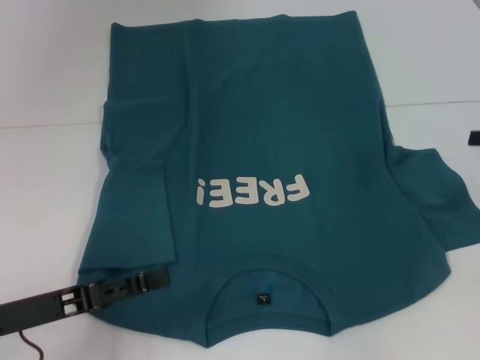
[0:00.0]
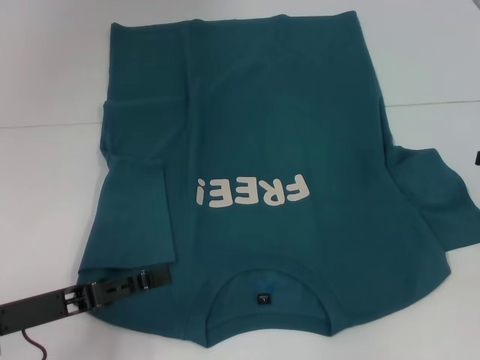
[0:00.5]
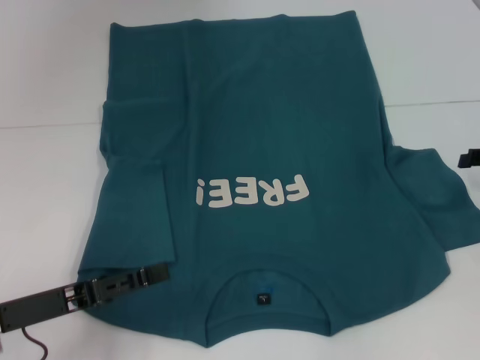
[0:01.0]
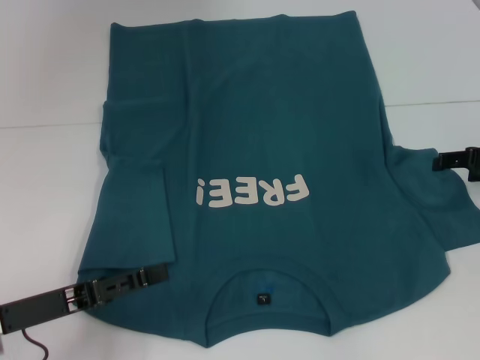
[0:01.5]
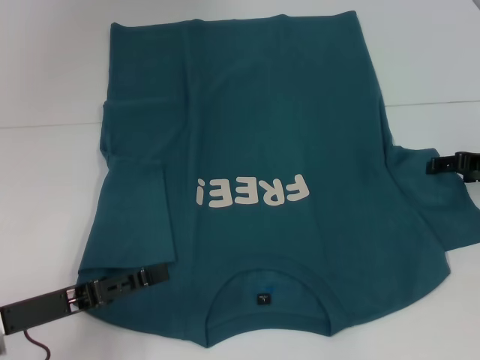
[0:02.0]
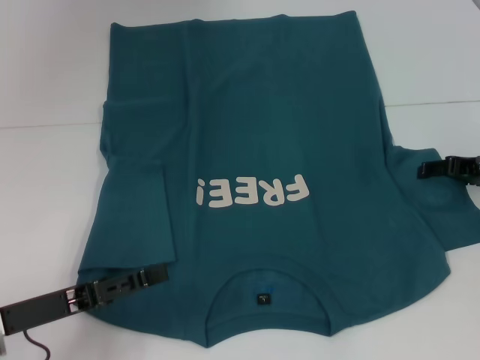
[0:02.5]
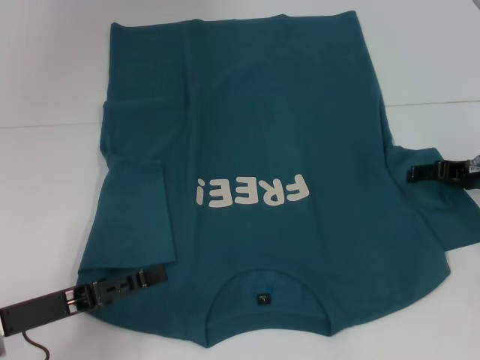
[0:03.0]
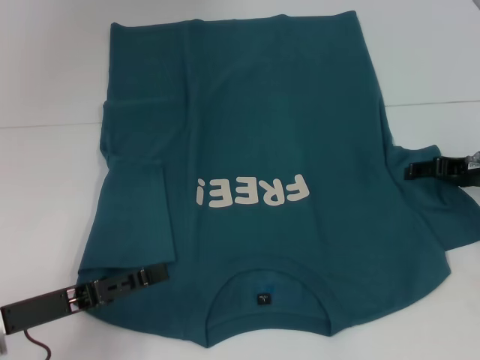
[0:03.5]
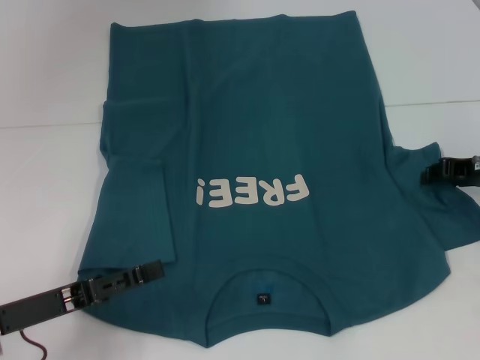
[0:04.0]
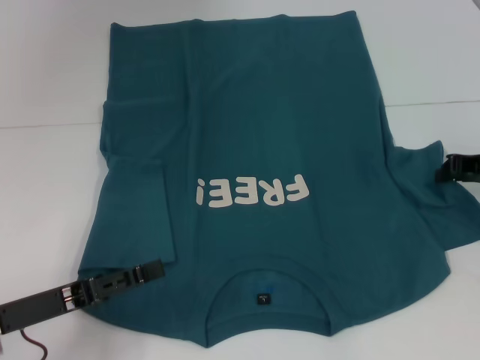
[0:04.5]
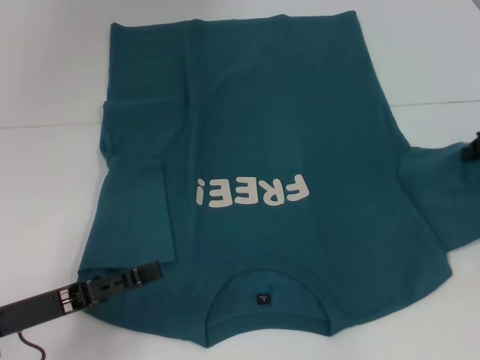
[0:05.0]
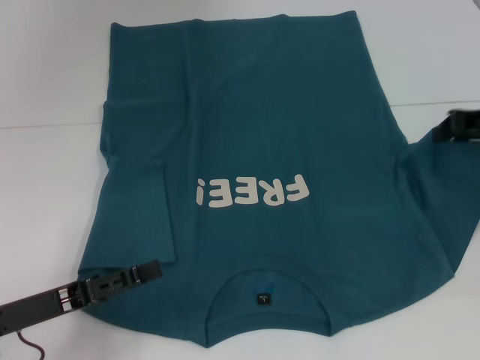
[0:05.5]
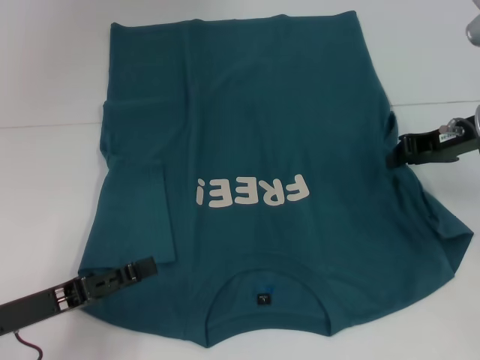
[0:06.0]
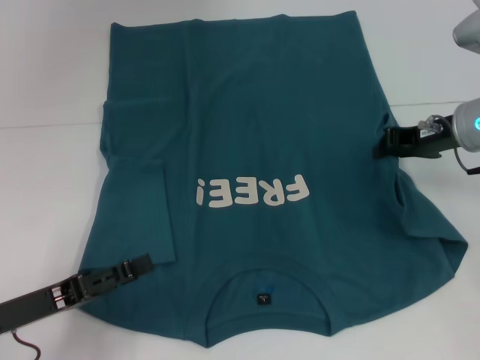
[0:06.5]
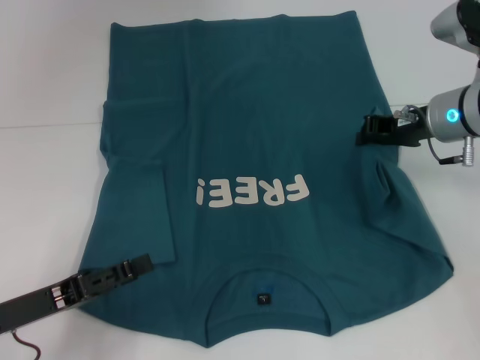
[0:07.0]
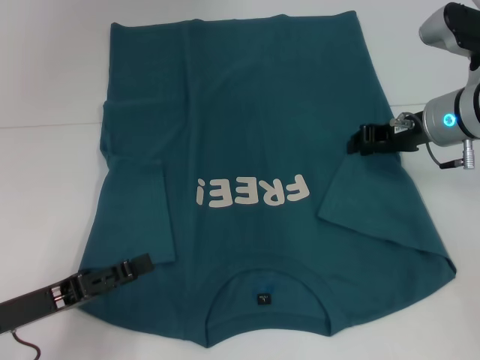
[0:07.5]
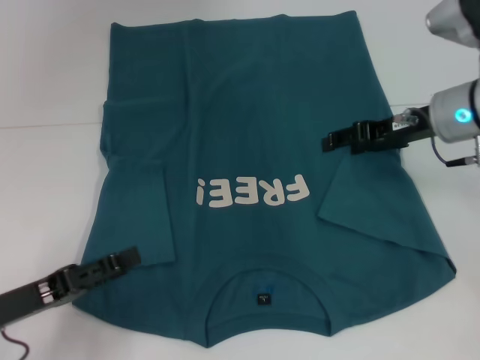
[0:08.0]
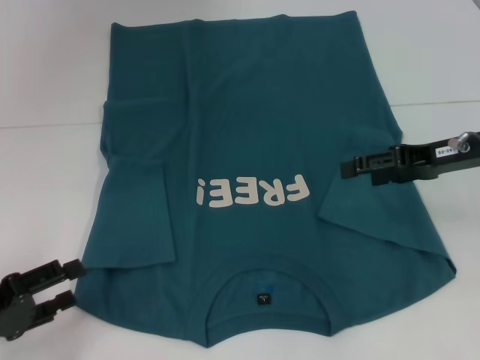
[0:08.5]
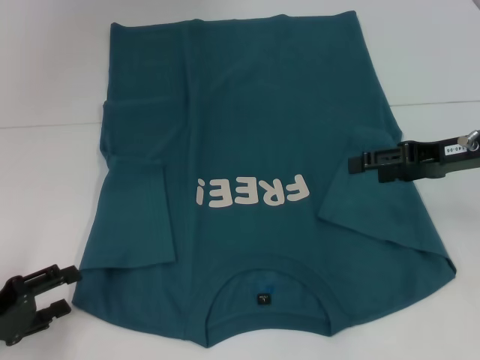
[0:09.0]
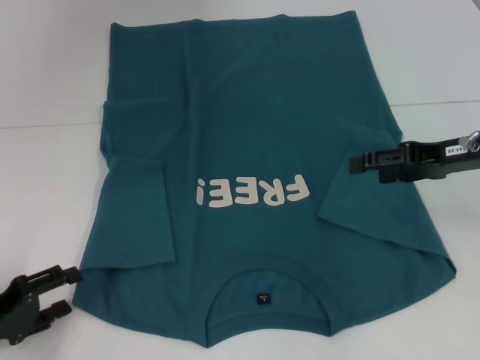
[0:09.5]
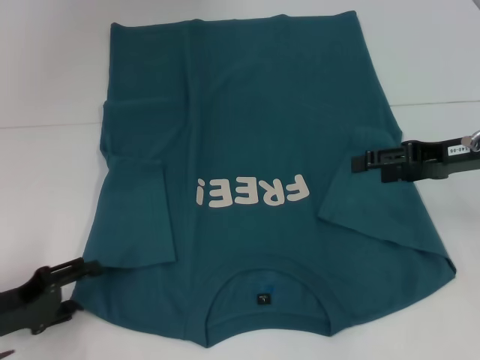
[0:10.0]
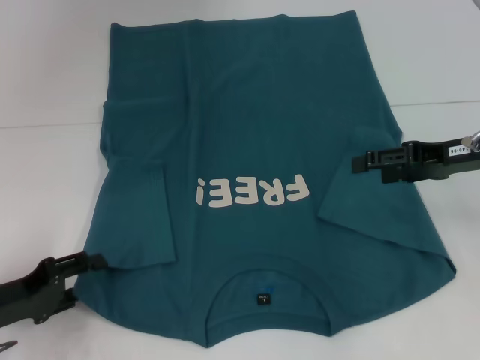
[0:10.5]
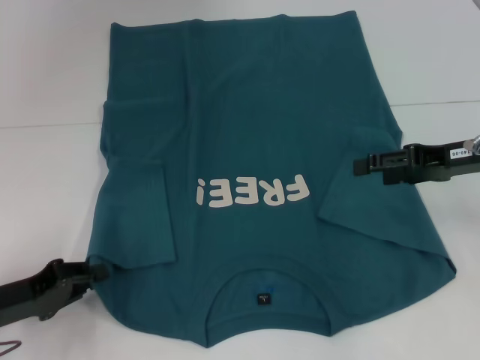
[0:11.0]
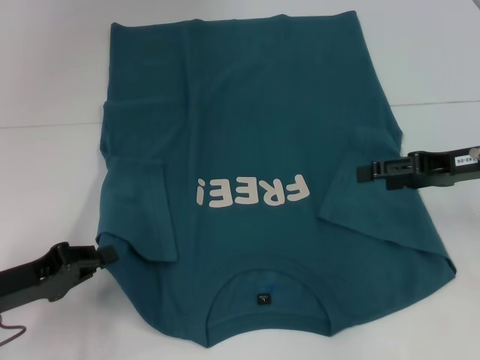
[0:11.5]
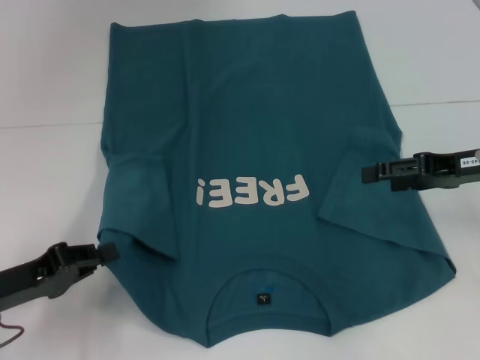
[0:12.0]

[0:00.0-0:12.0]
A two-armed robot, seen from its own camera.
Step, 0.0 to 7.0 s: Fold the bottom right sleeve to the right.
Step, 7.5 to 10.5 s: Grab the bottom left corner with your left hand.
0.0 to 2.0 s: The right gripper moves to the left, about 5 cm.
2.0 to 4.0 s: The right gripper closes up.
4.0 to 6.0 s: The right gripper travels upward by some 5 cm, and closes its fingers.
6.0 to 8.0 s: The right gripper opens.
8.0 to 10.0 s: The right gripper changes place by some 5 cm, and opens.
10.0 to 12.0 s: The left gripper closes.

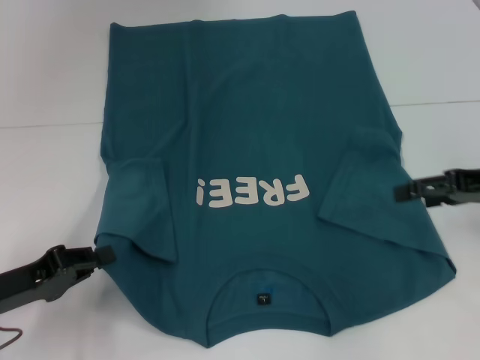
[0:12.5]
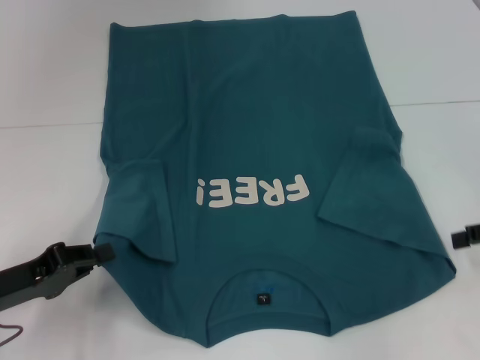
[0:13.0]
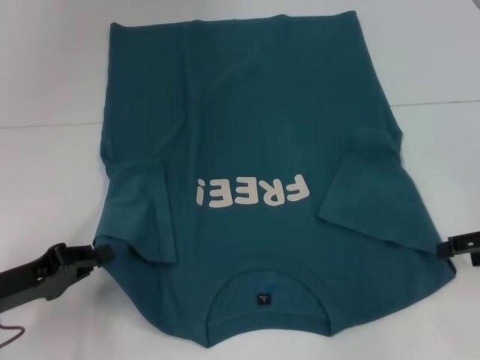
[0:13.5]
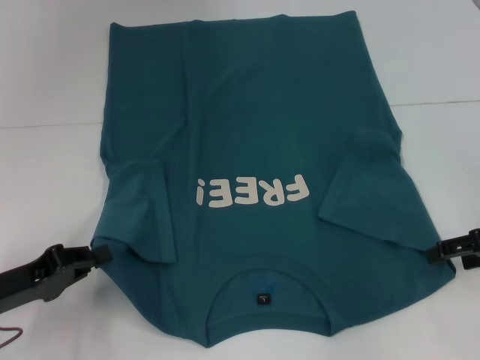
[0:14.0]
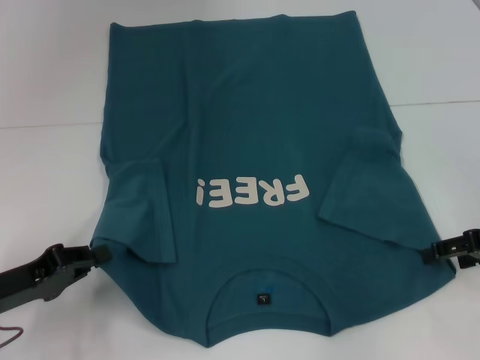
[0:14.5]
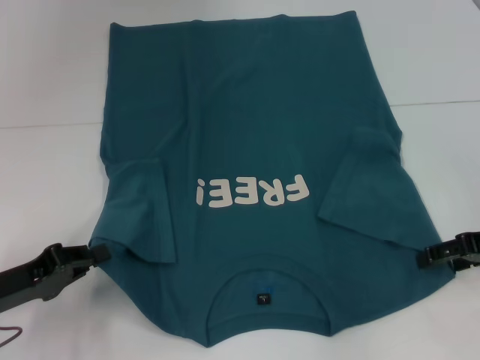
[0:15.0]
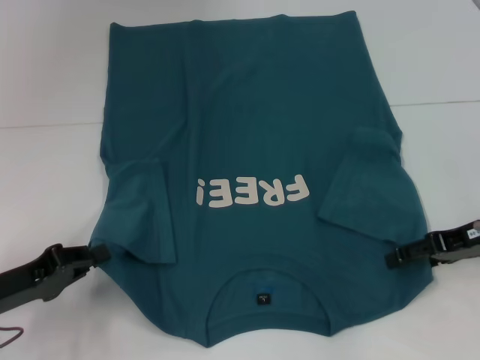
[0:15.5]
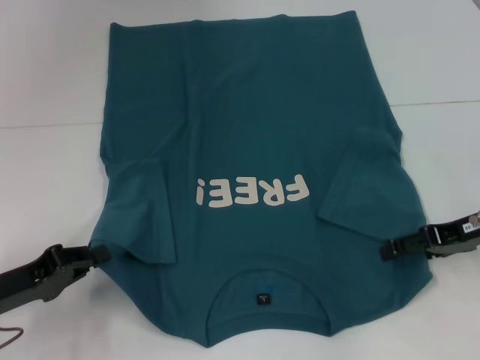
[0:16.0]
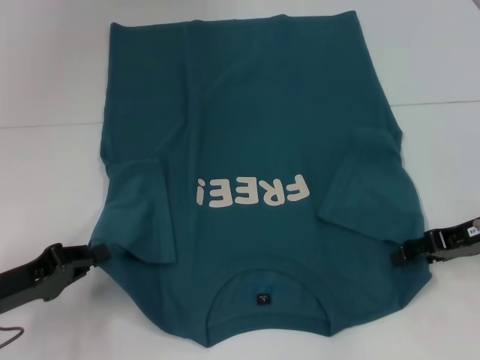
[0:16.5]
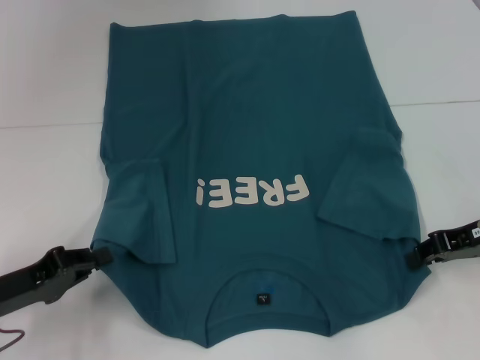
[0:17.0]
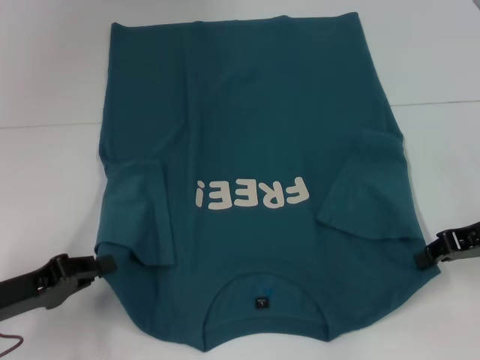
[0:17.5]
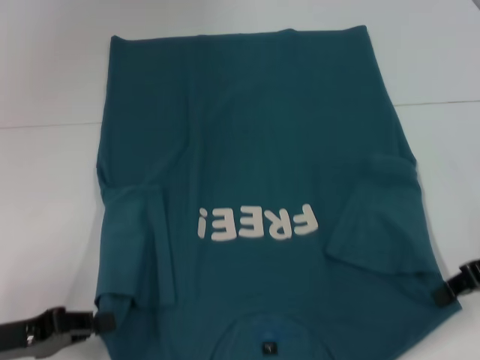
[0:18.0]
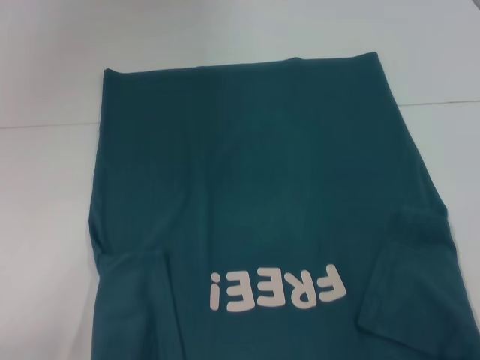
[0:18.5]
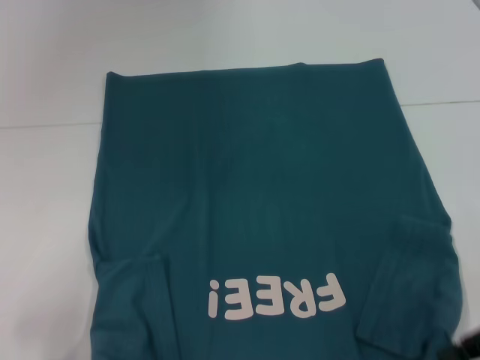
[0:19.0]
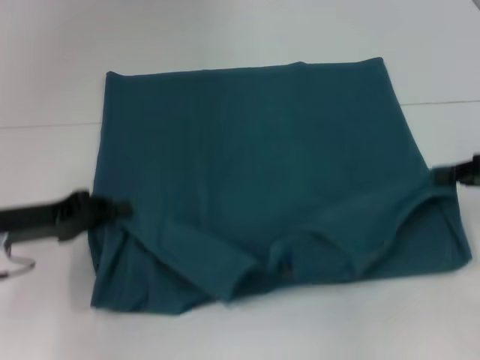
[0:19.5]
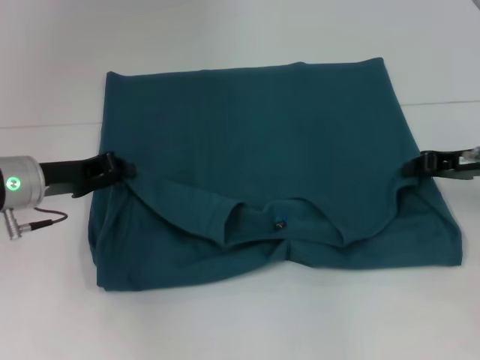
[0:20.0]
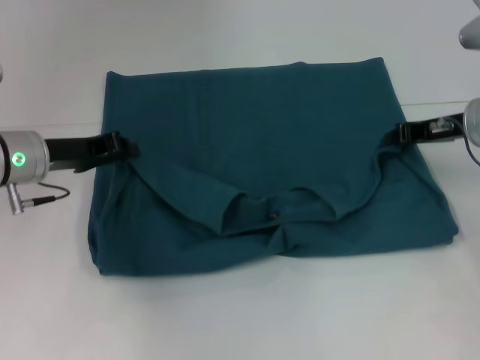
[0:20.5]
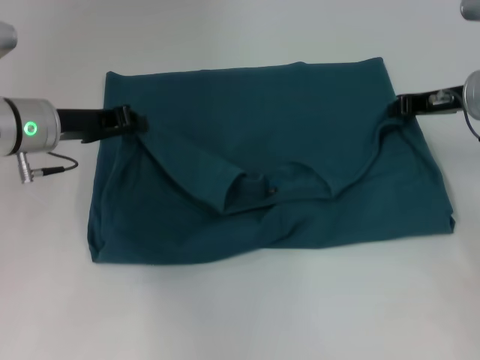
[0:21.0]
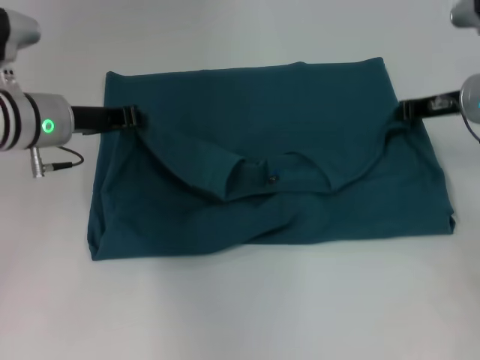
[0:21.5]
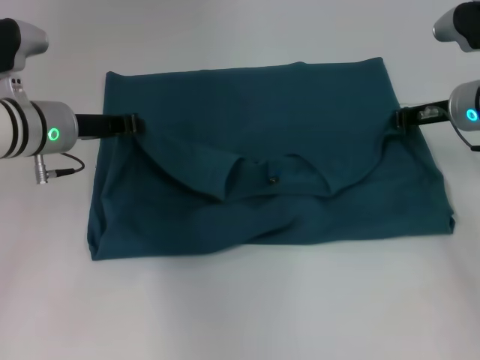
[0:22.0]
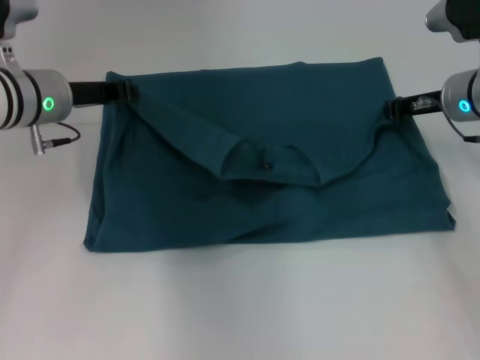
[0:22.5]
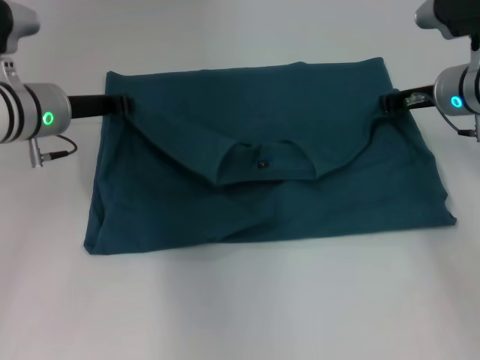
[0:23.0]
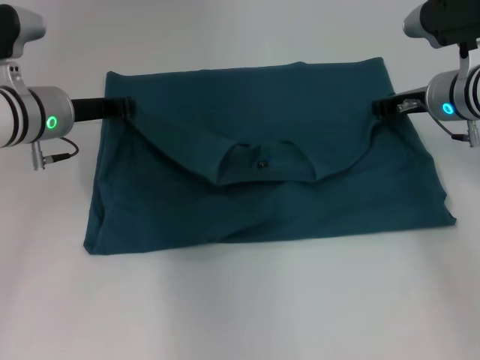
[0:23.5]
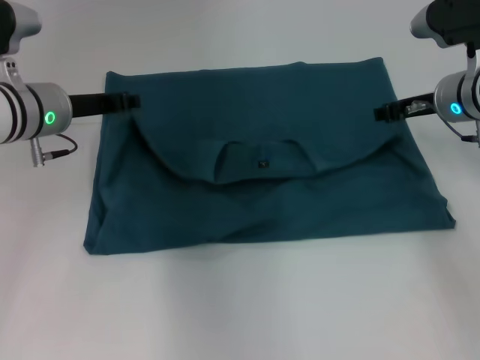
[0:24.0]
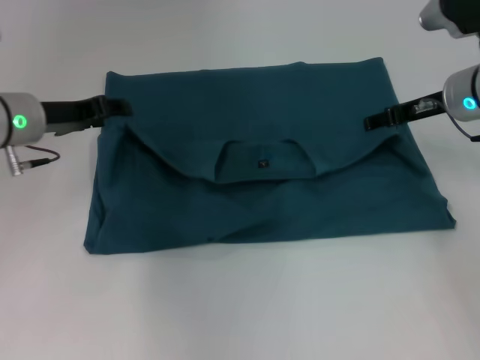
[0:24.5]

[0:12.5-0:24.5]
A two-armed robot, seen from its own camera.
Step, 12.5 to 17.0 s: Grab the bottom right corner with your right hand.
Step, 17.5 to 24.0 s: Fold the clothes to the left.
Step, 17.5 to 24.0 s: Fold the clothes to the right.
12.5 to 16.5 s: The grippers stay close to where they were, moving slightly.
16.5 to 18.5 s: Both grippers move backward, approximately 10 cm. The right gripper closes its fingers.
18.5 to 20.5 s: The grippers both shift forward by some 20 cm.
20.5 to 22.5 s: The left gripper changes place by approximately 5 cm.
22.5 to 24.5 s: The left gripper opens up; the right gripper opens its fingers.

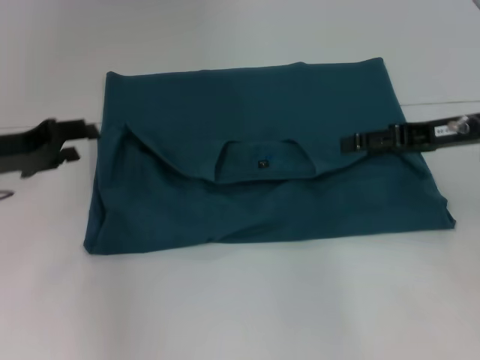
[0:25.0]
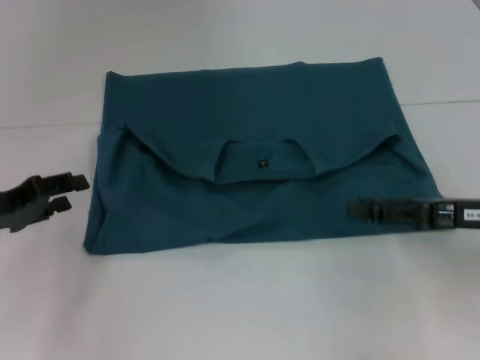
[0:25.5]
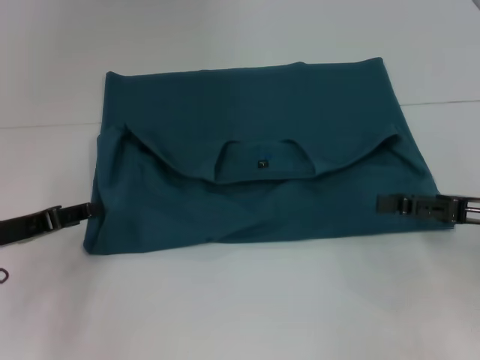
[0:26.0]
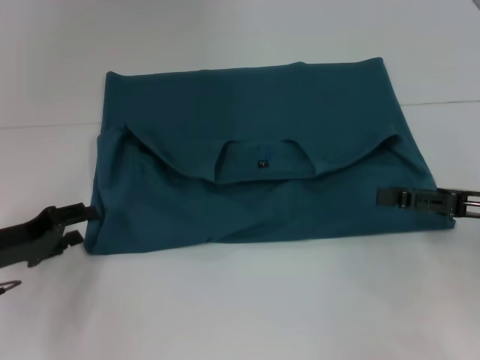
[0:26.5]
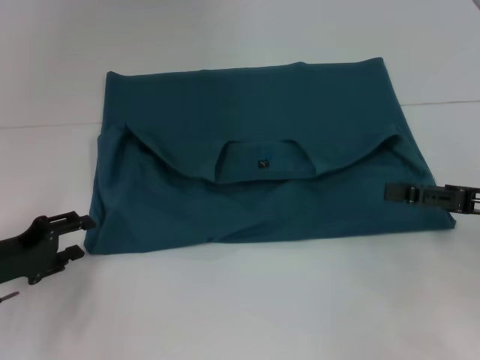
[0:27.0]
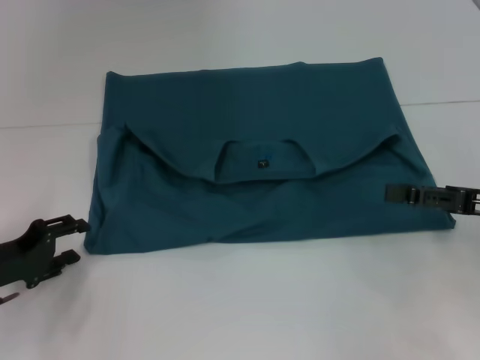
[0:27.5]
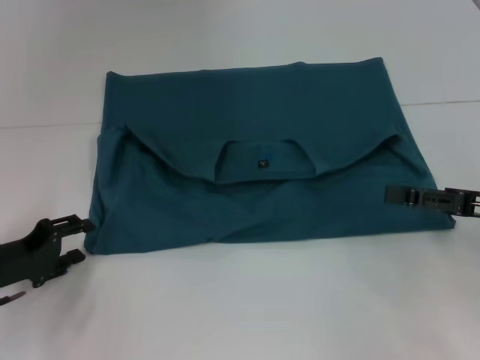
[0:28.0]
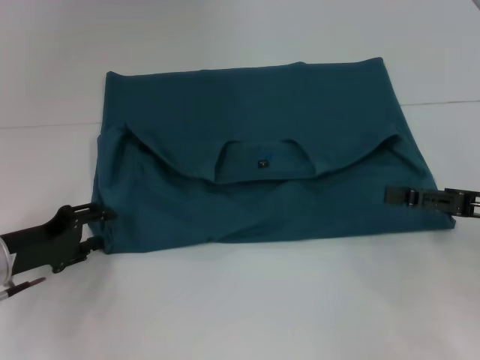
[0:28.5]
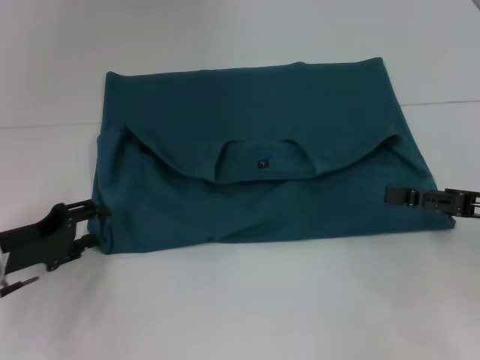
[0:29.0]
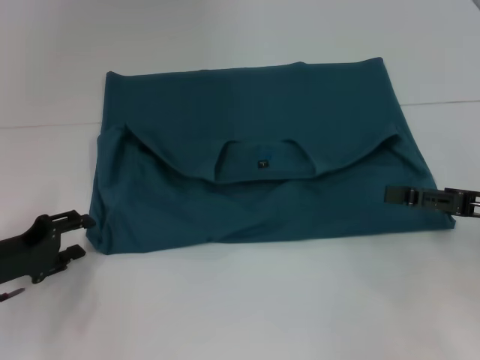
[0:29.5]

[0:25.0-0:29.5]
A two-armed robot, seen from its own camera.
25.0 to 27.0 s: The left gripper moves downward and backward, approximately 10 cm. The right gripper goes about 10 cm backward and downward.
